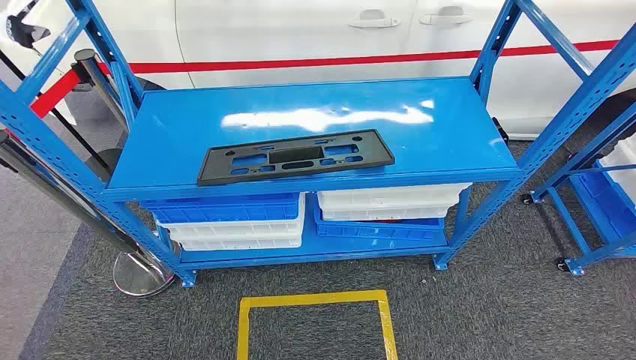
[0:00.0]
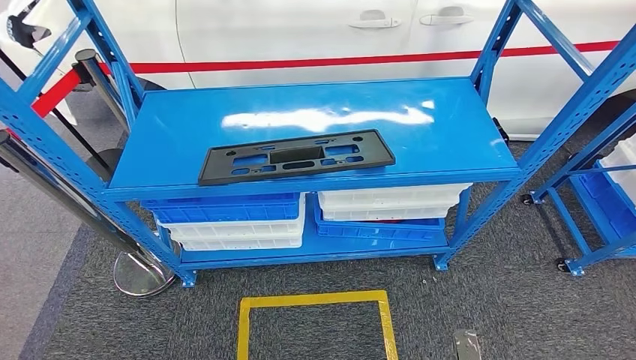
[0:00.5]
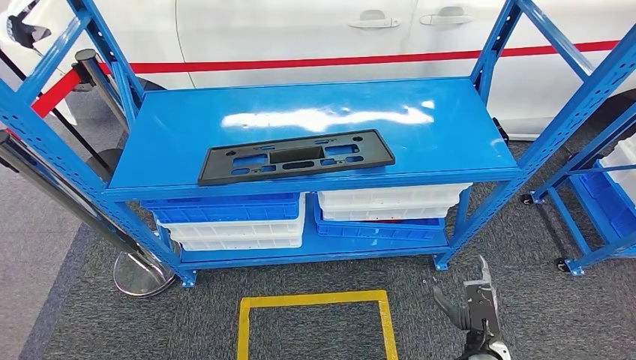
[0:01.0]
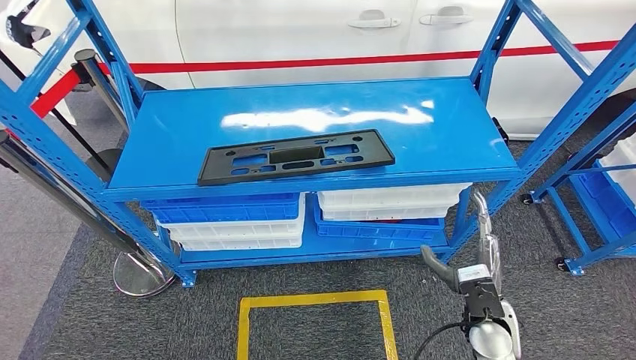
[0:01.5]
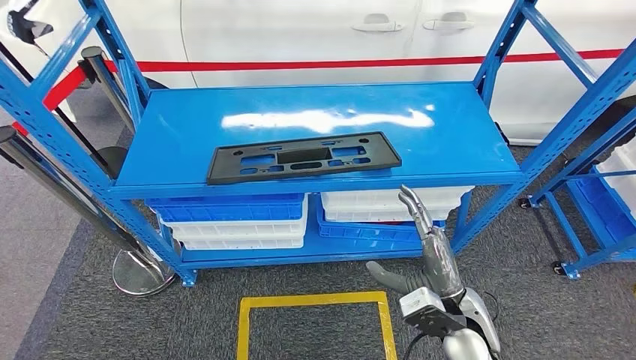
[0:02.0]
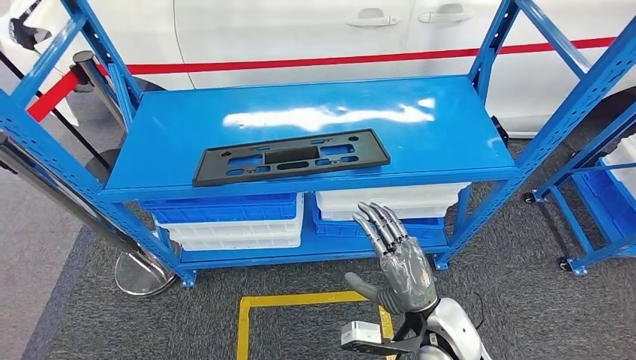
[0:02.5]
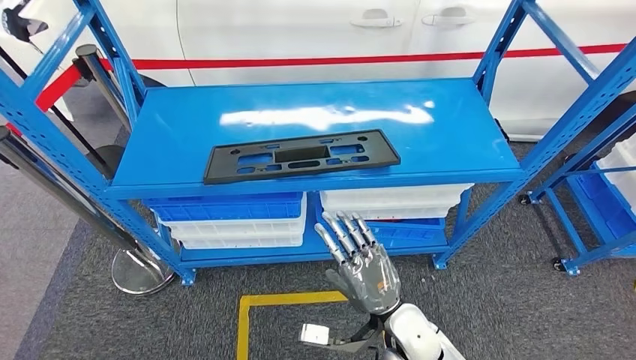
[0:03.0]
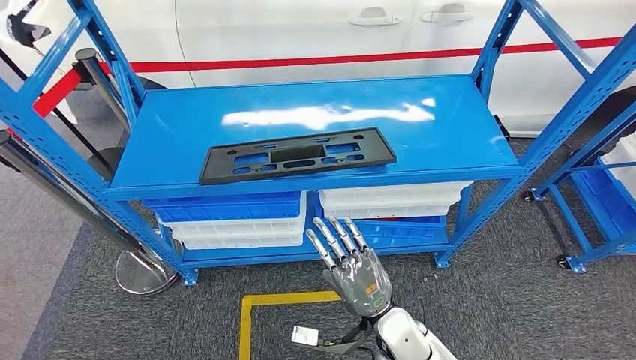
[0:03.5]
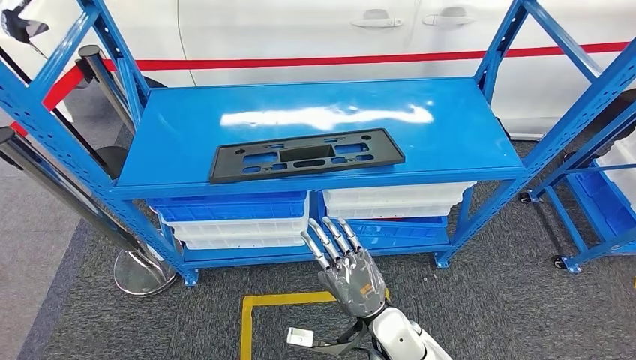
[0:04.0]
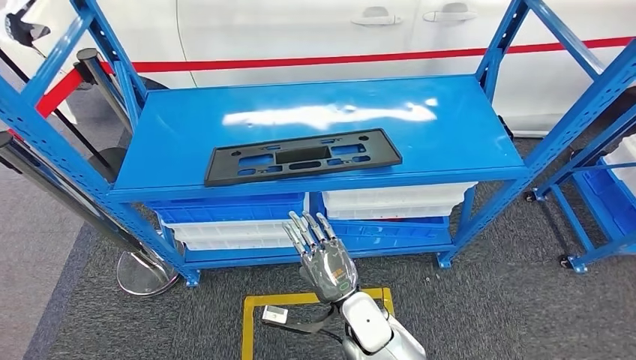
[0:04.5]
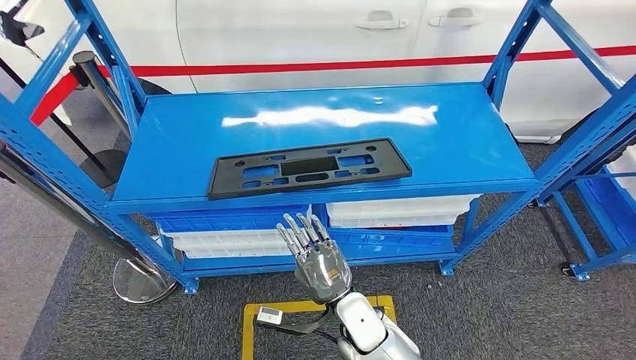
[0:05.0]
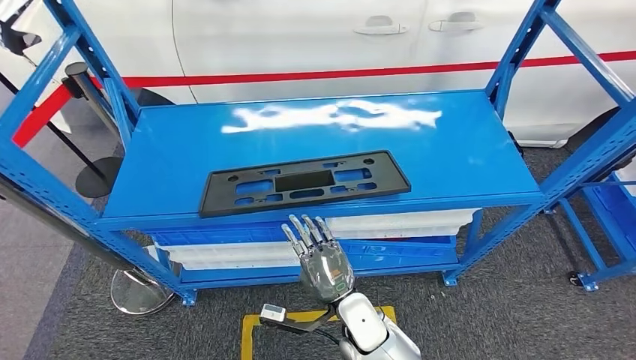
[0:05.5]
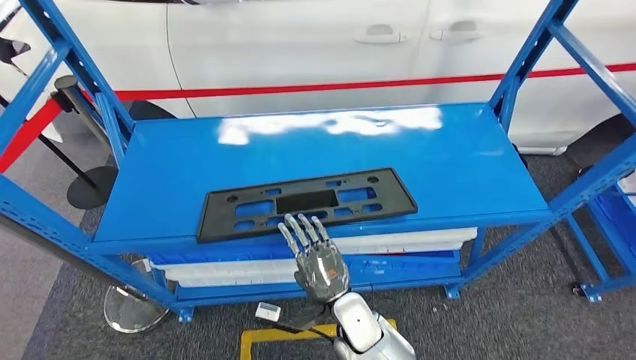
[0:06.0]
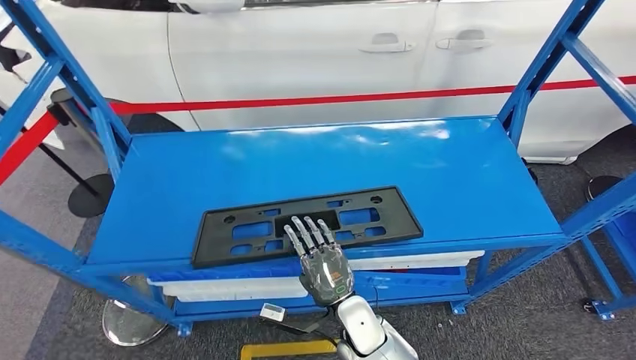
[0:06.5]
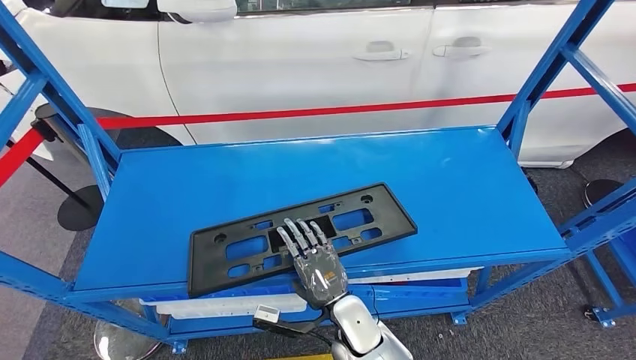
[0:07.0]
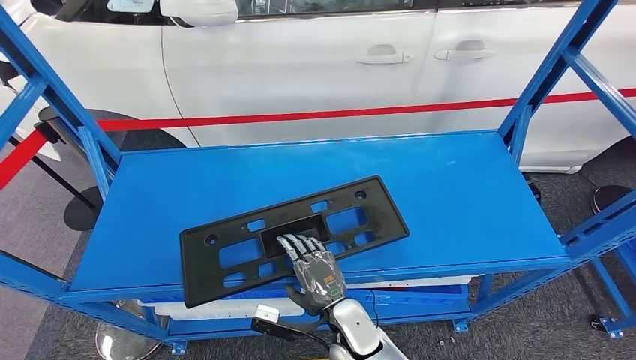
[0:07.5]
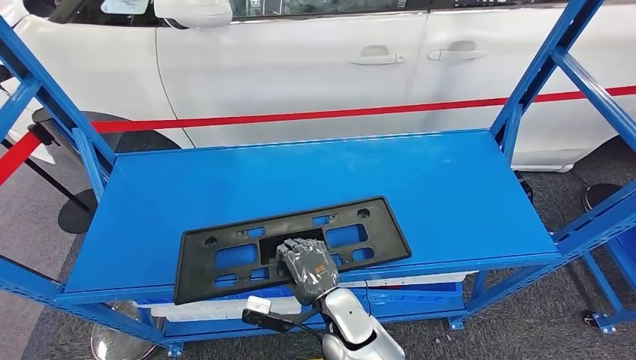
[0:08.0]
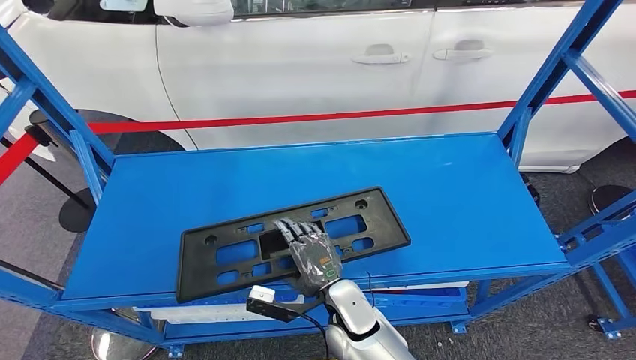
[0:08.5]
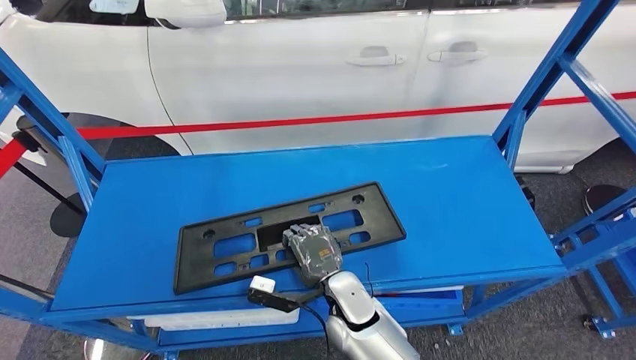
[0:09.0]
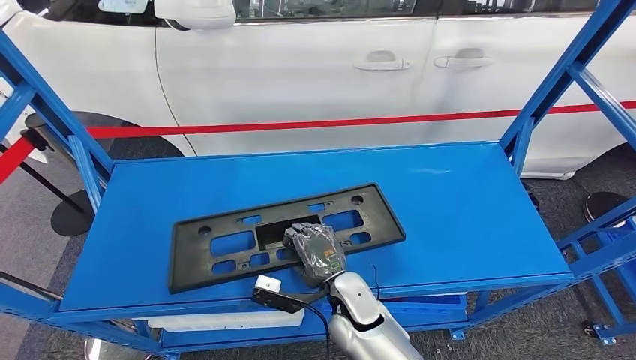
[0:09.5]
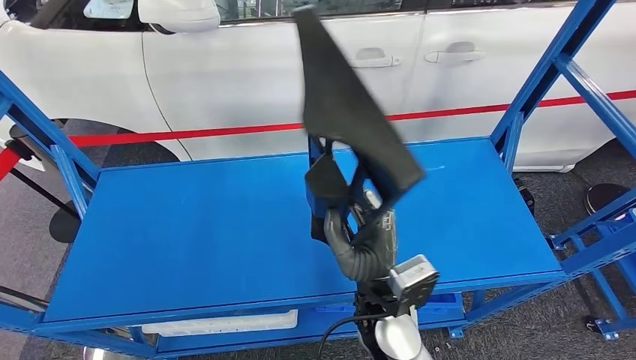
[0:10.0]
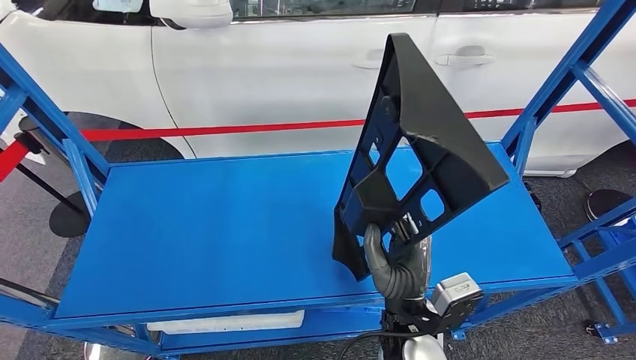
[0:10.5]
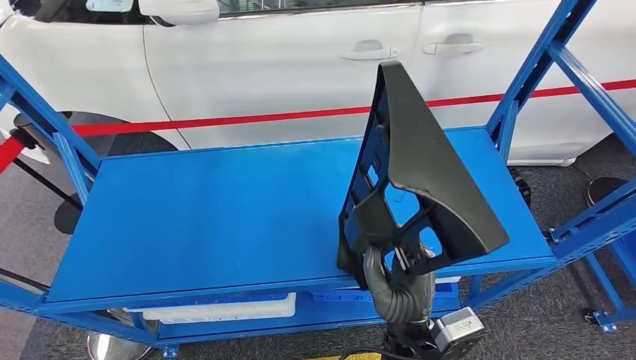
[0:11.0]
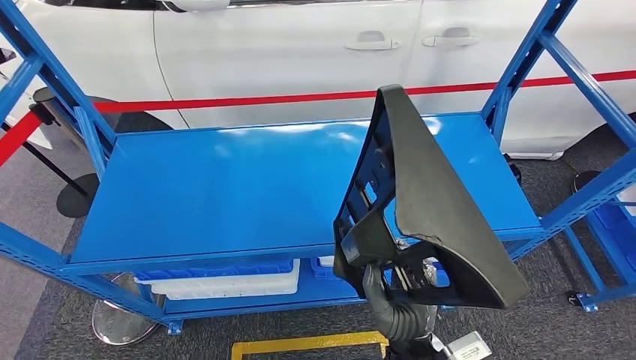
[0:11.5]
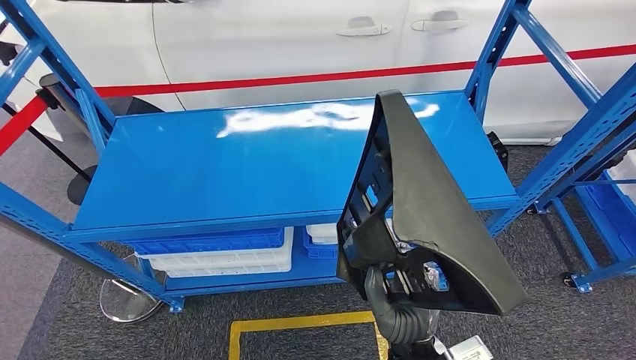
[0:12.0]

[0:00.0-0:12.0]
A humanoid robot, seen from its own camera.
Step, 0:00.0 to 0:10.5: Pick up the large material from the shelf.

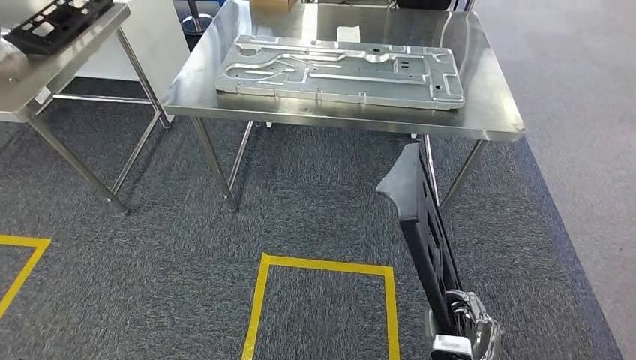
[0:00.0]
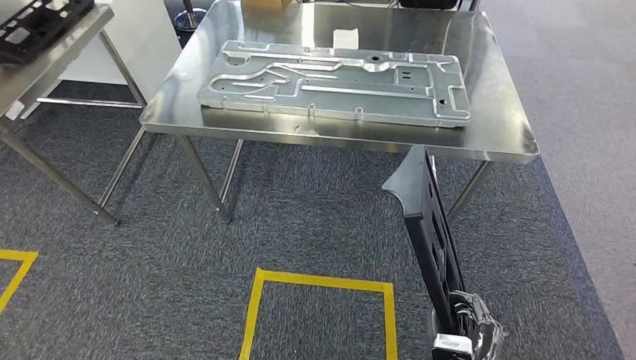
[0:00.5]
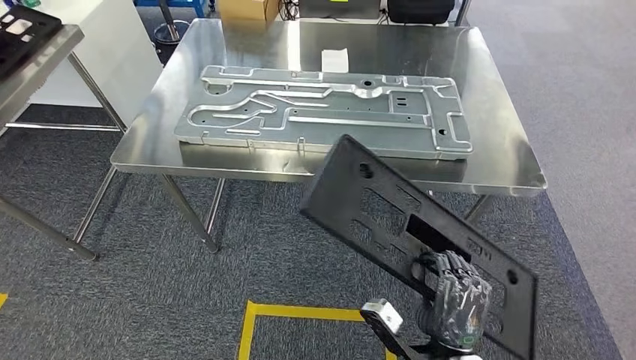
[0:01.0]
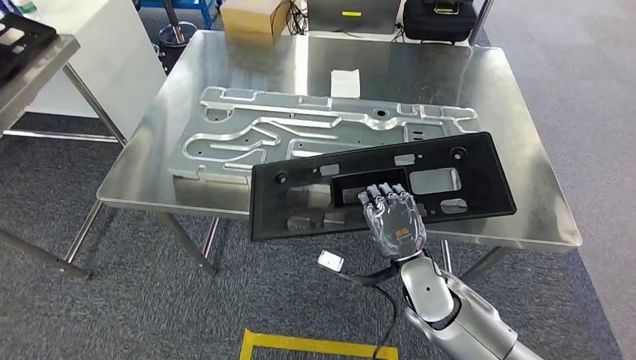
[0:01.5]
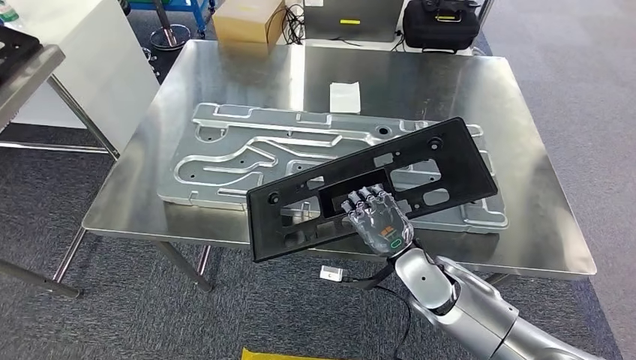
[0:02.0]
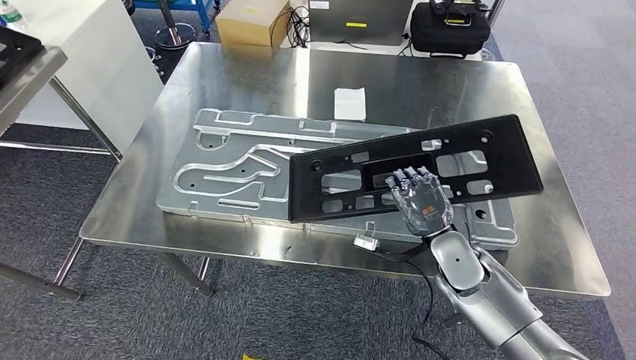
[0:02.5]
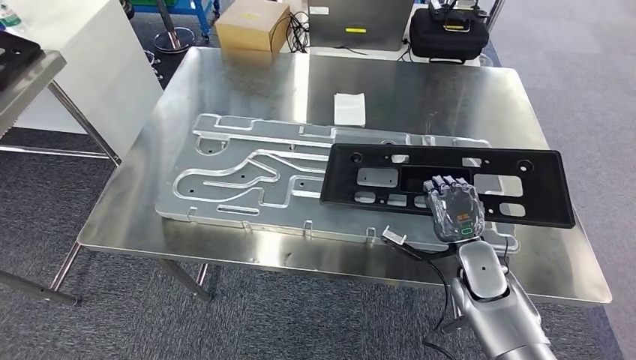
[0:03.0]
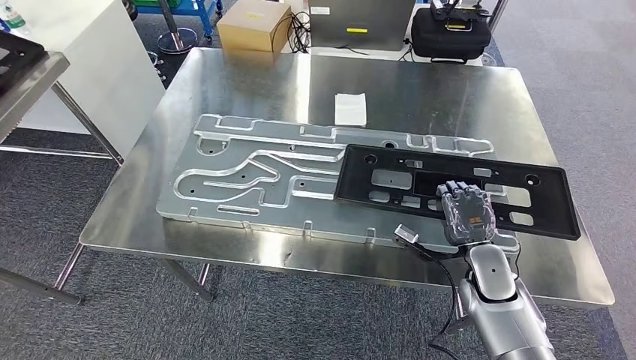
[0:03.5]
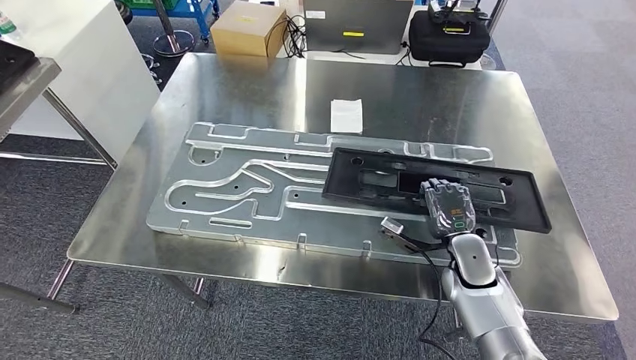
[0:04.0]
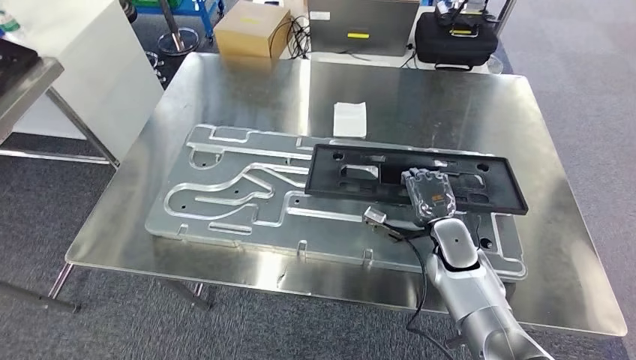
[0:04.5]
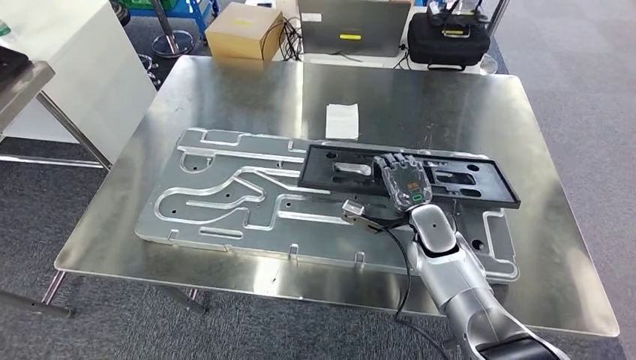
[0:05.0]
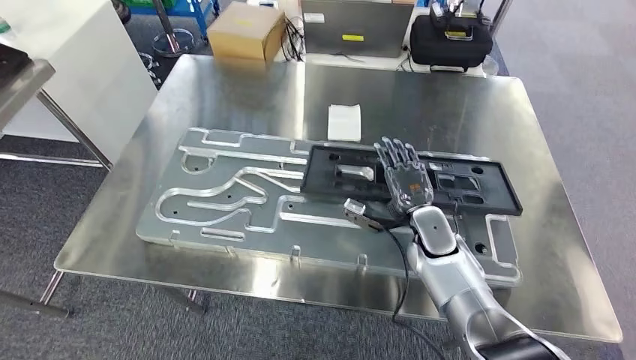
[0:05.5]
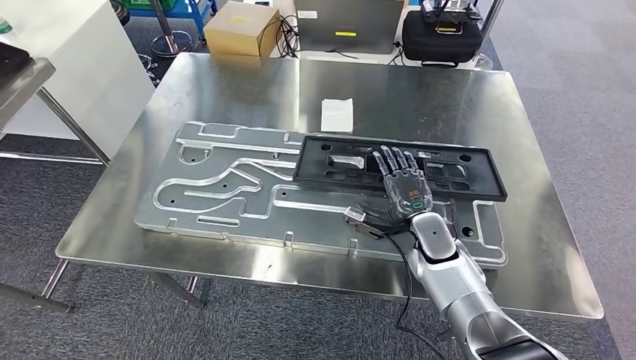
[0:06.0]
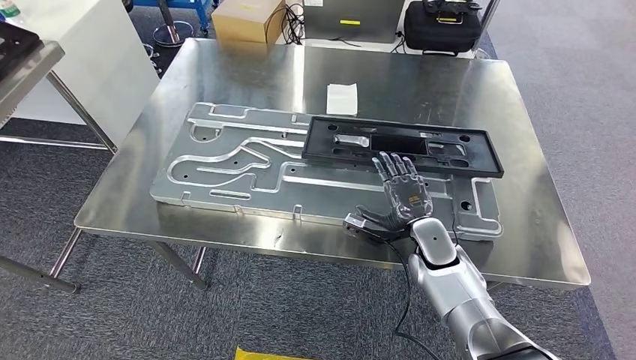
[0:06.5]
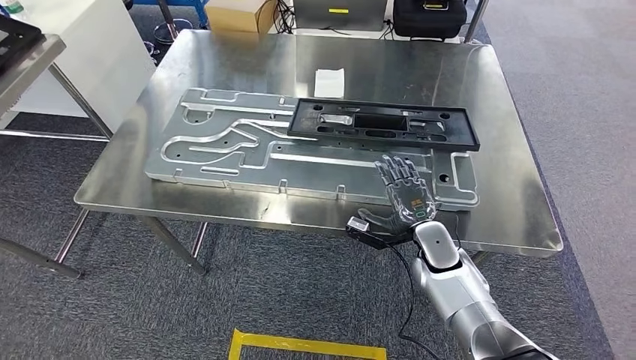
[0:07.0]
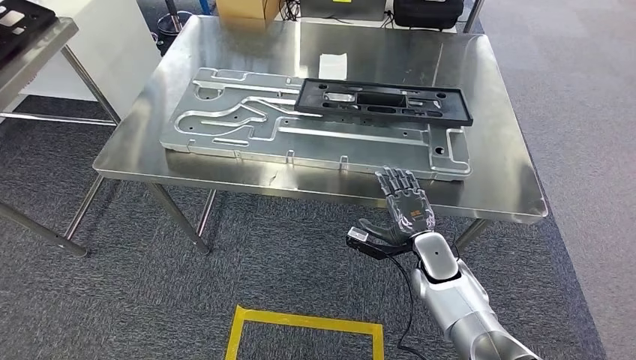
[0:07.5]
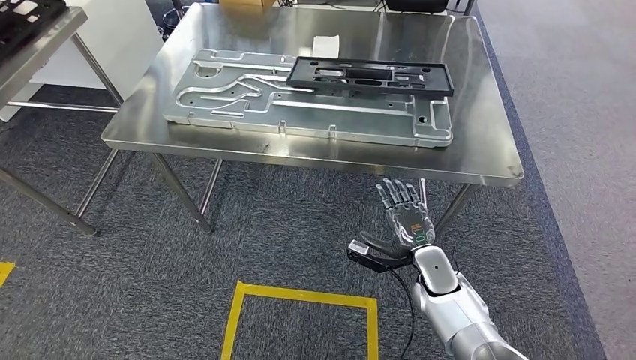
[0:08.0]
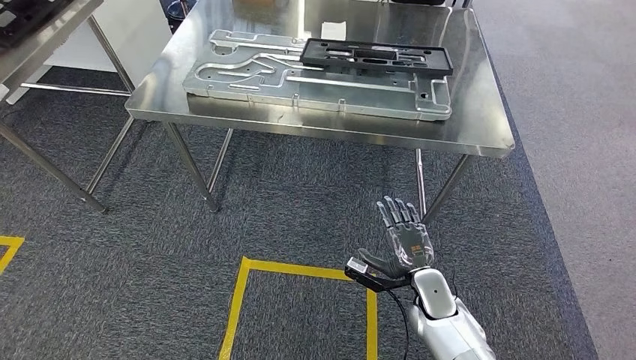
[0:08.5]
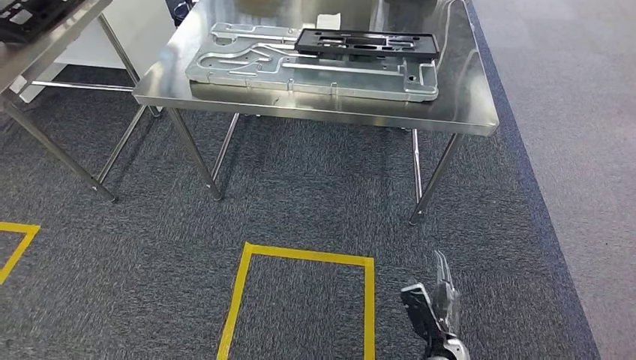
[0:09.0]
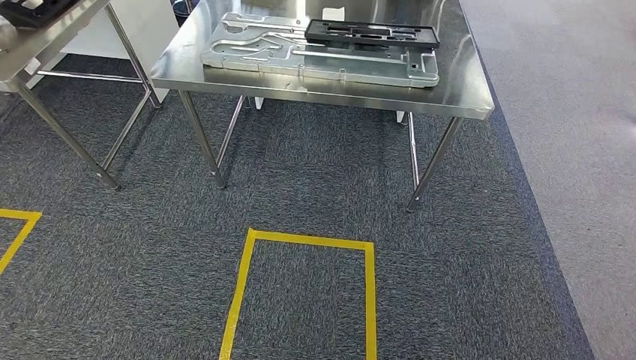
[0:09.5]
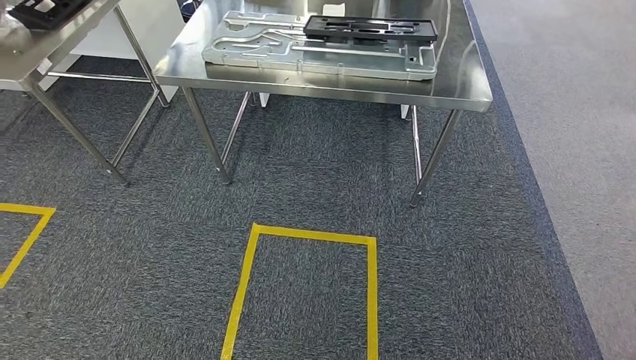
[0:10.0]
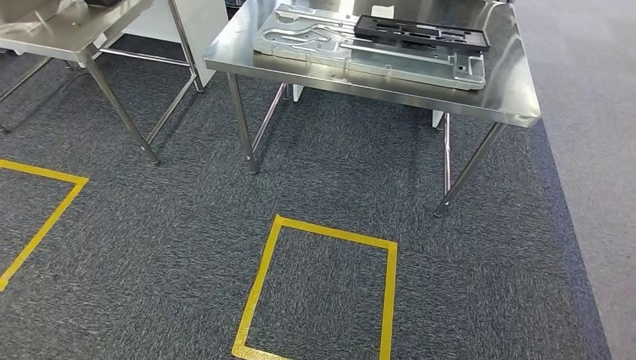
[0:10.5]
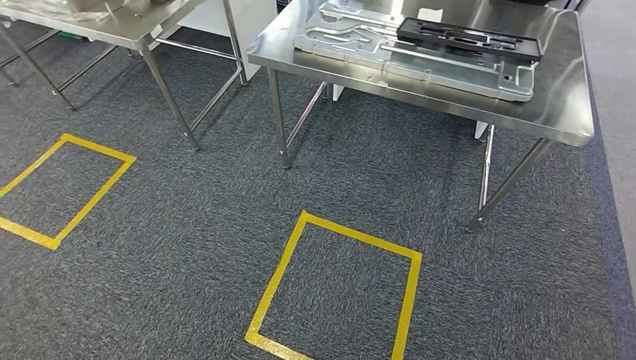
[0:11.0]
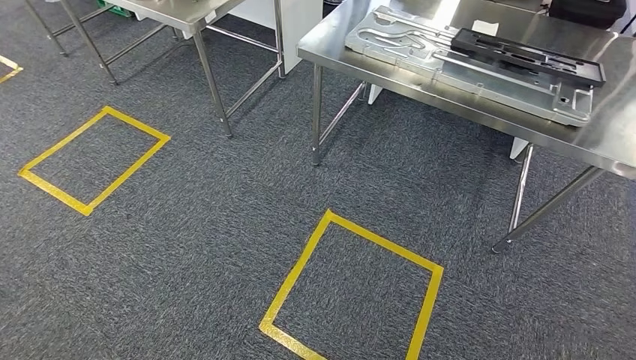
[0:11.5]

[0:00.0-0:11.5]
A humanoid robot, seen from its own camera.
Step, 0:01.0 to 0:06.5: Insert the large material into the corresponding slot on the workbench.
